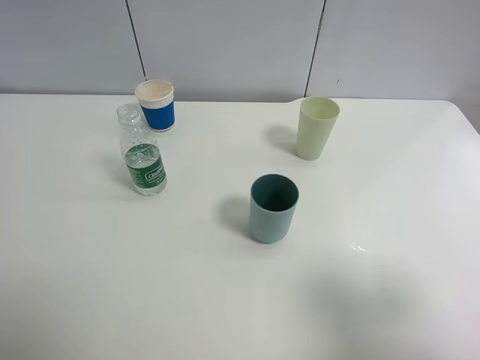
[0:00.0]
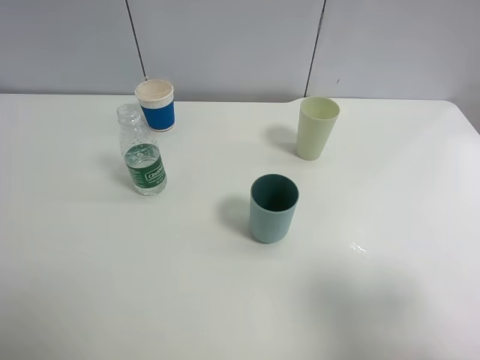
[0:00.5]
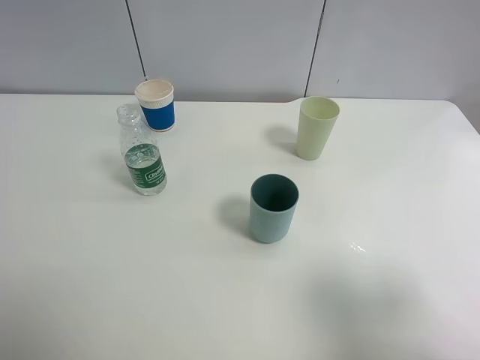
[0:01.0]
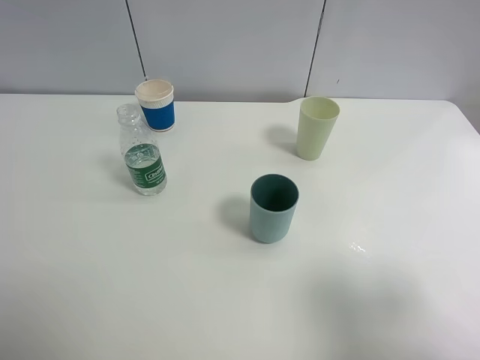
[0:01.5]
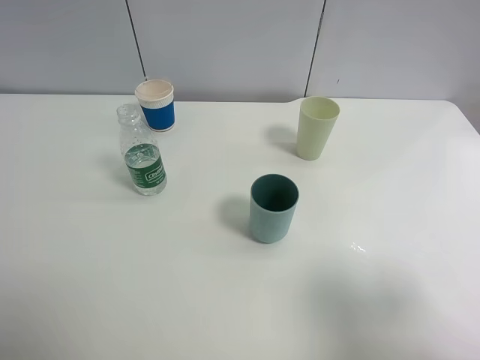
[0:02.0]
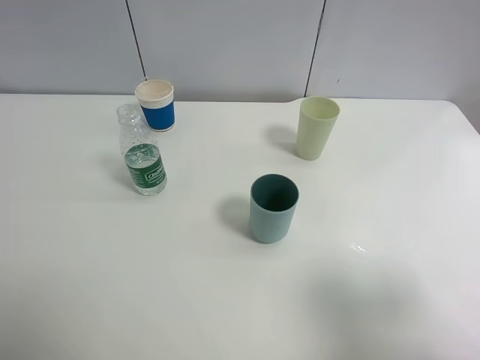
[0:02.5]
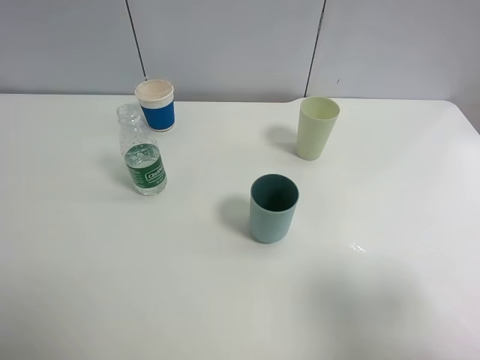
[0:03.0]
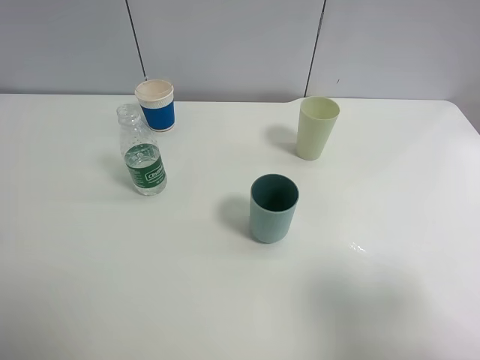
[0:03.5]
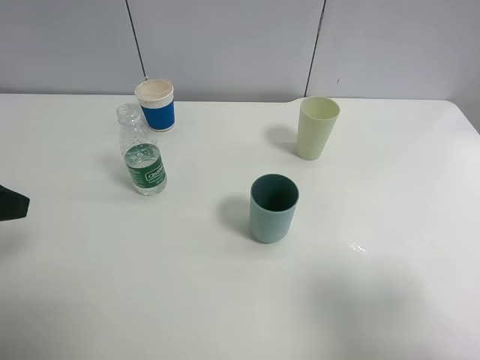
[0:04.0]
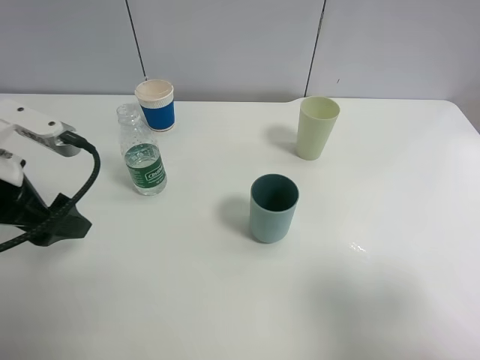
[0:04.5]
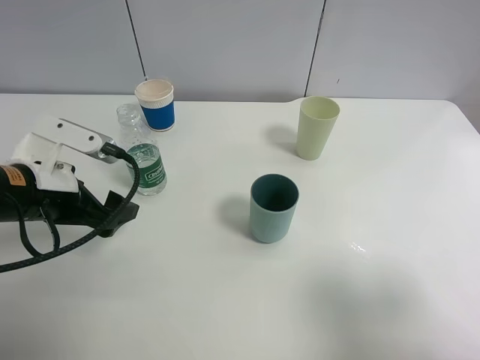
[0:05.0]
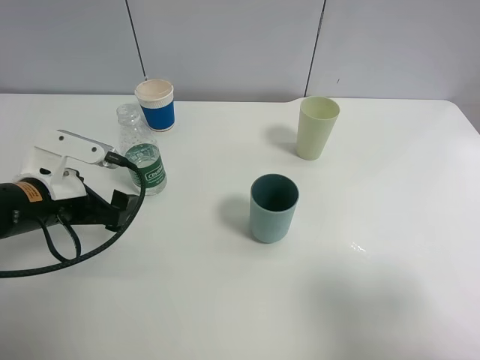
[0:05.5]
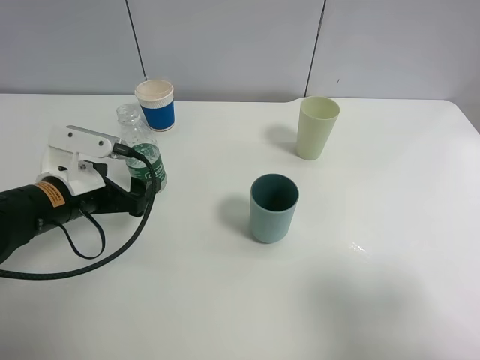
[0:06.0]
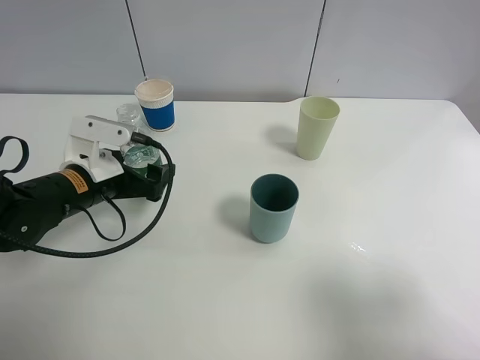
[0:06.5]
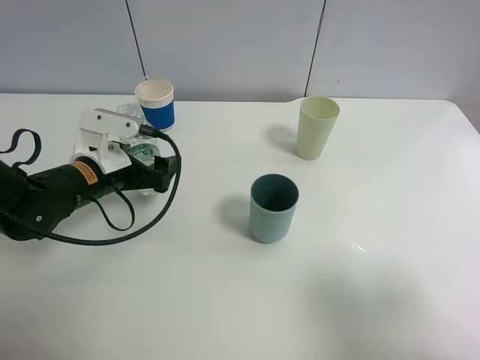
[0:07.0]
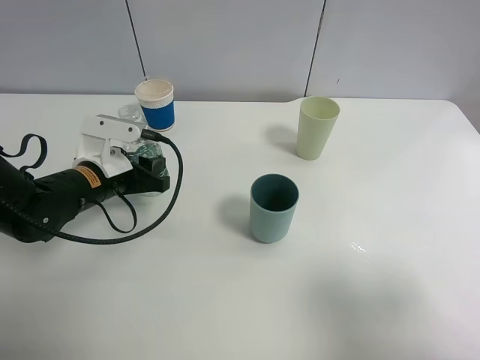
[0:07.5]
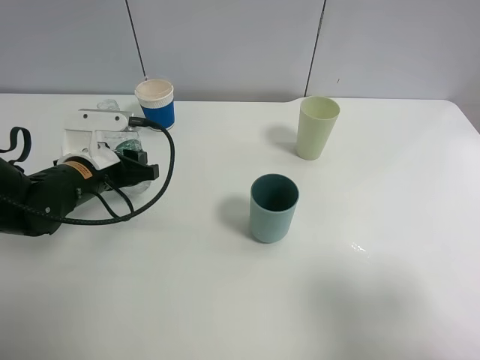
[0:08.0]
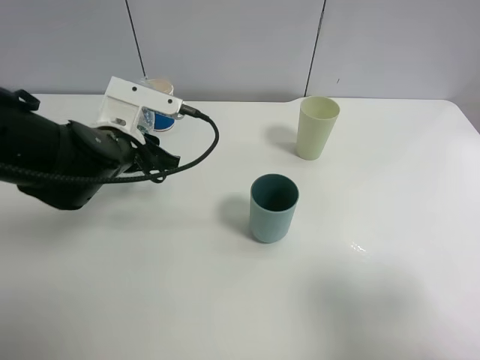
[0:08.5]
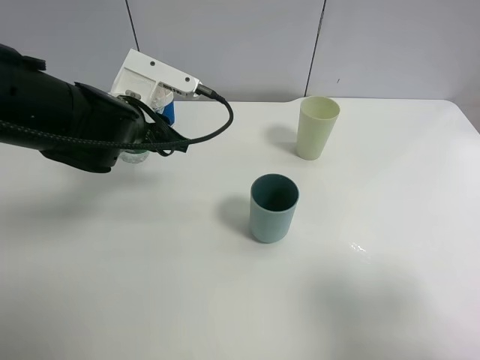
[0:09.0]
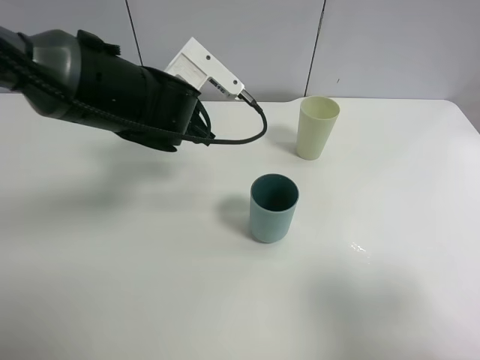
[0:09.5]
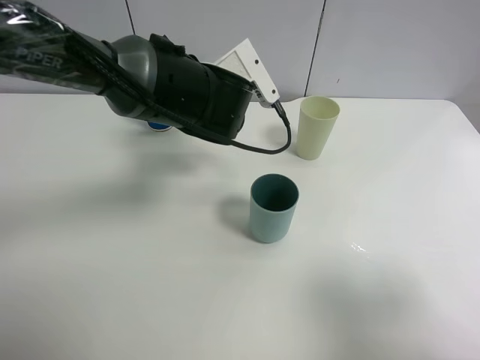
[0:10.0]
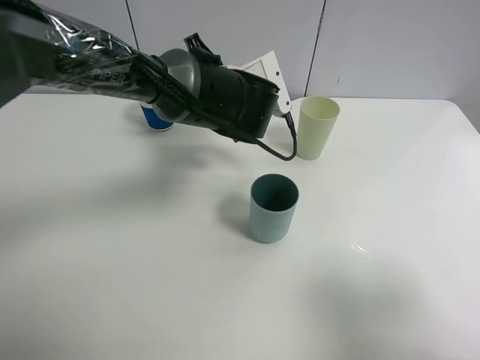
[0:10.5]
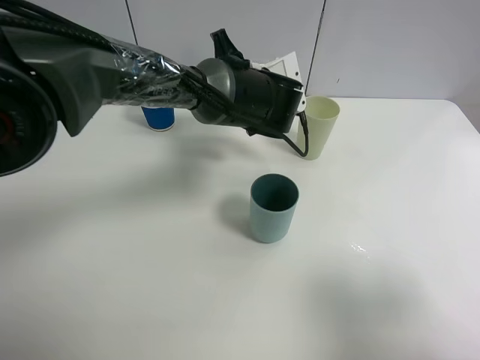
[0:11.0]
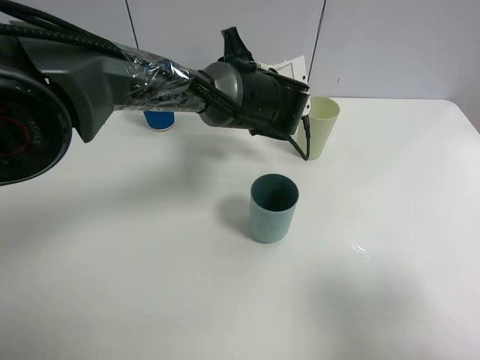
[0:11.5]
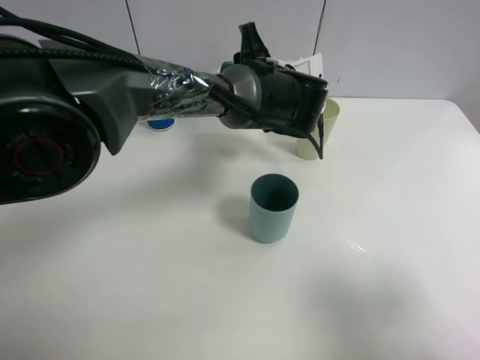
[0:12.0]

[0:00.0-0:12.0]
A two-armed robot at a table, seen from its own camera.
Task of the whole recording: use a clamp to hold the bottle of the drink, pour the beverage into a random cup, then clamp the cup containing the drink and pour the drink into another random cup.
Step, 0:00.0 to 0:08.5: Pick up the water bottle with left gripper.
0:00.0 to 0:02.0: Neither gripper changes place.
0:02.0 to 0:04.0: The left gripper is displaced forward by some 15 cm.
0:04.0 to 0:06.0: The left gripper heads downward, forward and to the right, covering roughly 20 cm.
0:06.0 to 0:08.0: The left gripper closes.
0:08.0 to 0:10.0: The left gripper goes approximately 20 cm to the right and upward.
0:10.0 to 0:12.0: The left gripper heads to the right, covering approximately 10 cm.

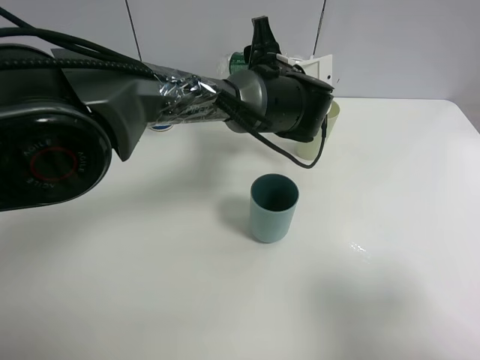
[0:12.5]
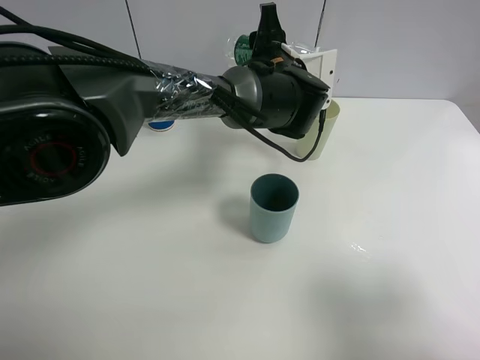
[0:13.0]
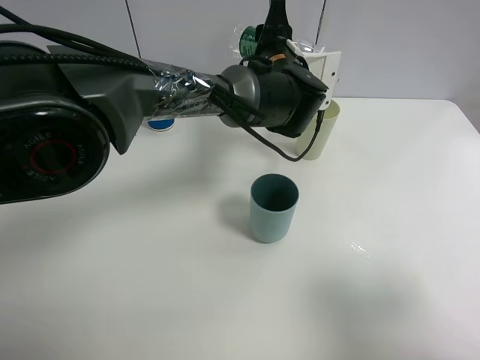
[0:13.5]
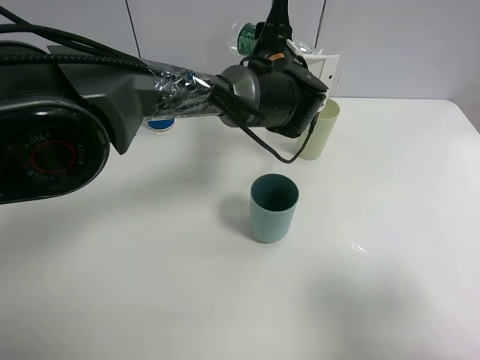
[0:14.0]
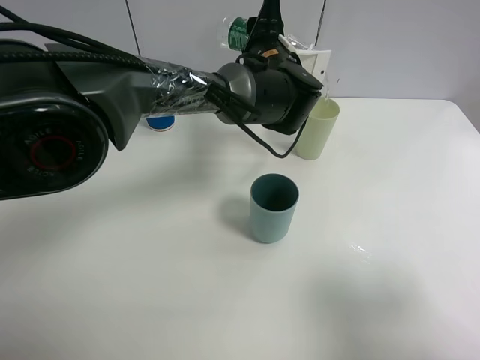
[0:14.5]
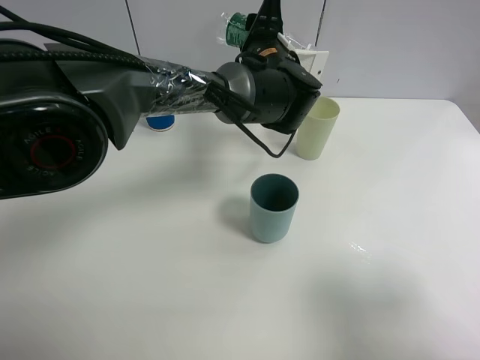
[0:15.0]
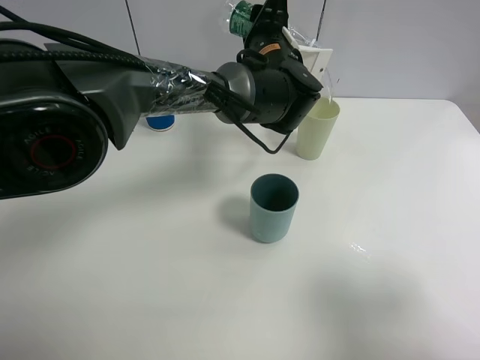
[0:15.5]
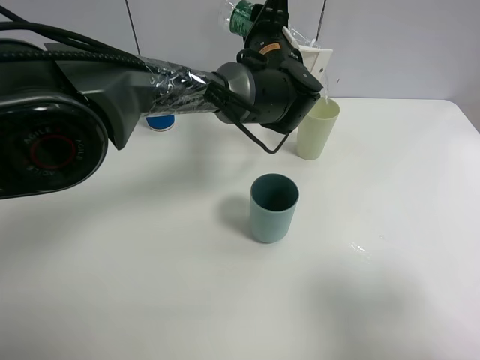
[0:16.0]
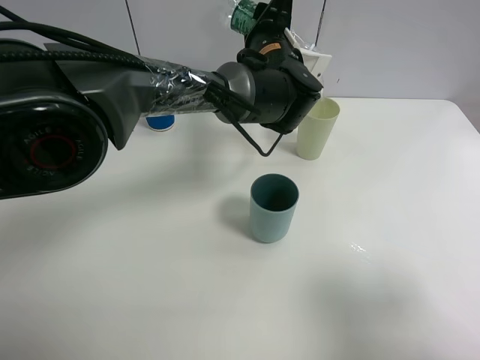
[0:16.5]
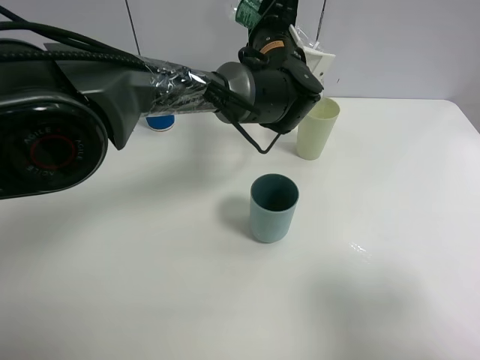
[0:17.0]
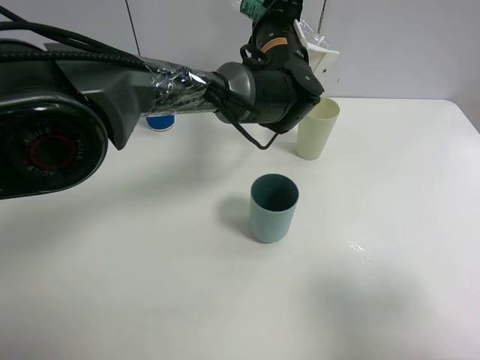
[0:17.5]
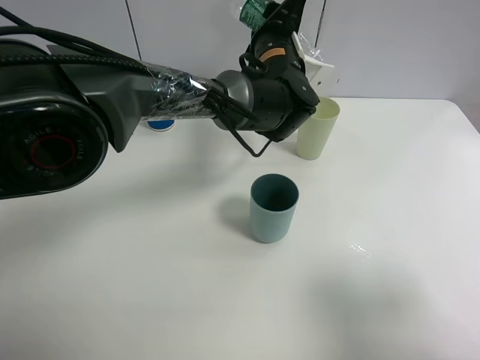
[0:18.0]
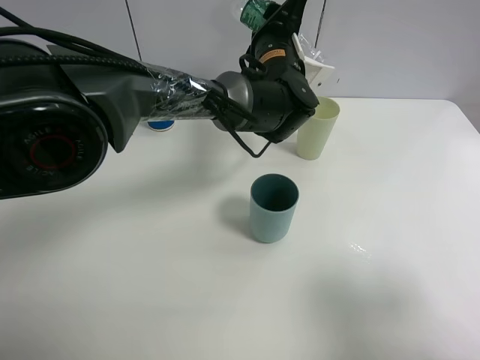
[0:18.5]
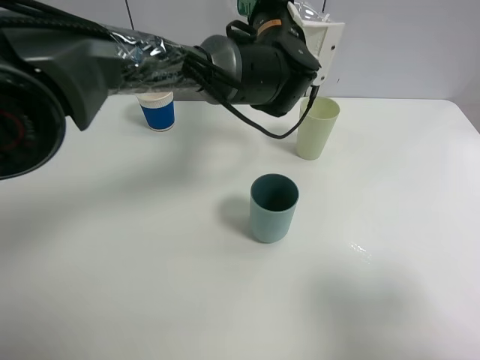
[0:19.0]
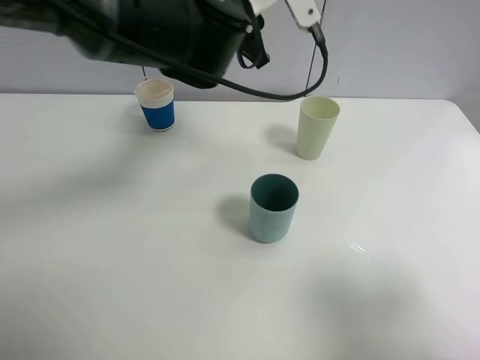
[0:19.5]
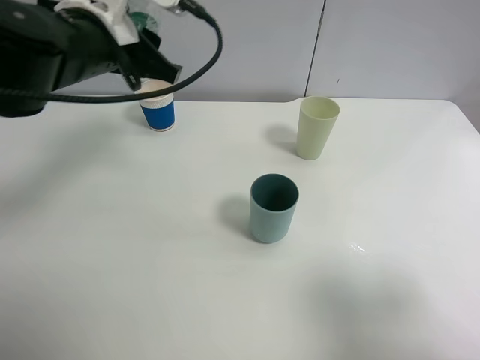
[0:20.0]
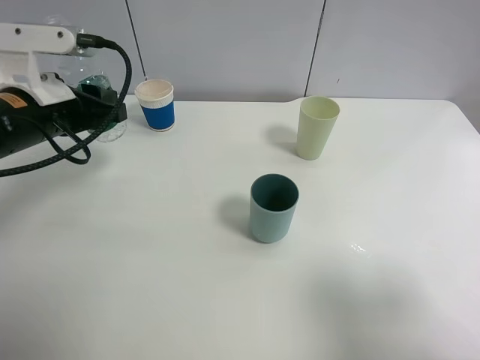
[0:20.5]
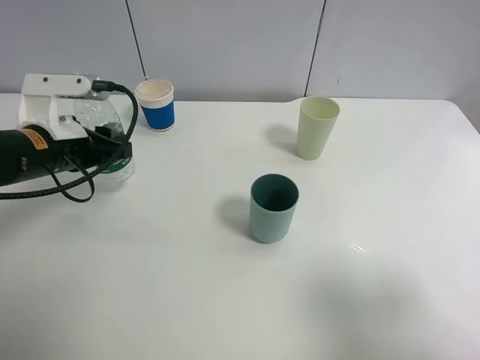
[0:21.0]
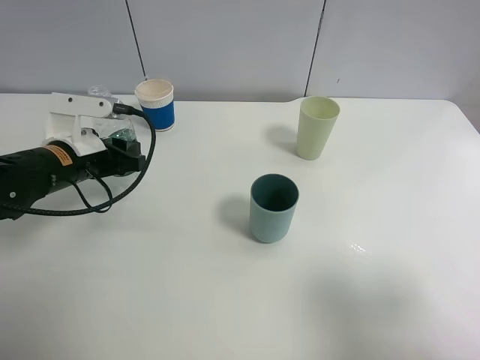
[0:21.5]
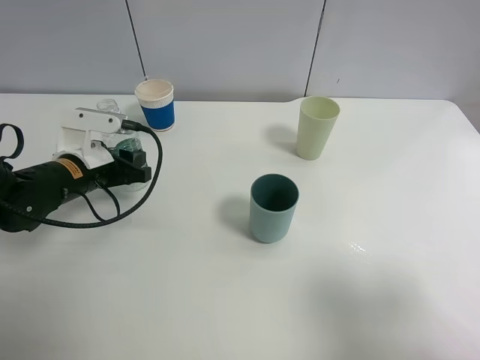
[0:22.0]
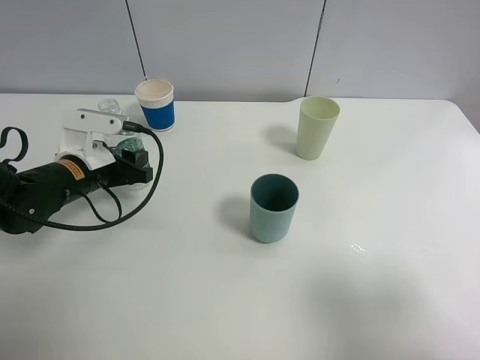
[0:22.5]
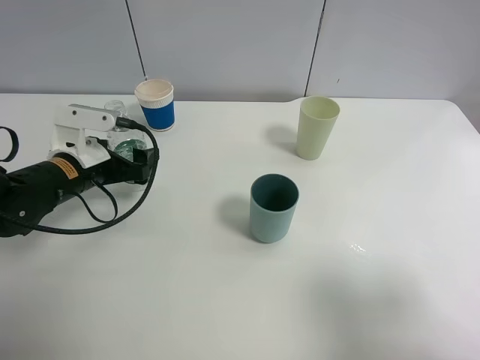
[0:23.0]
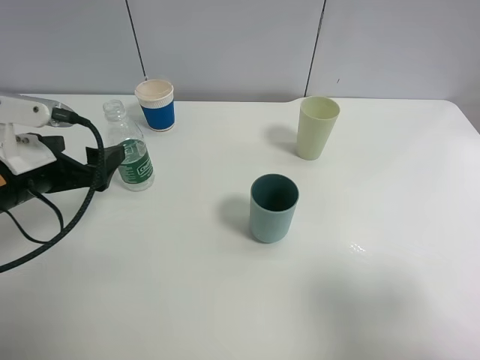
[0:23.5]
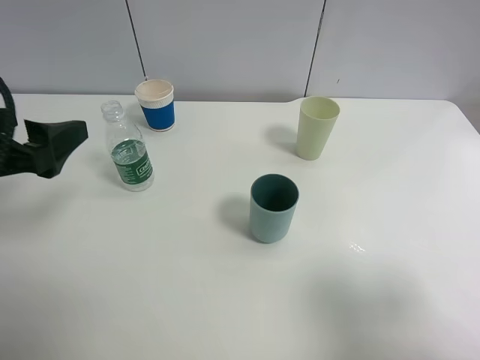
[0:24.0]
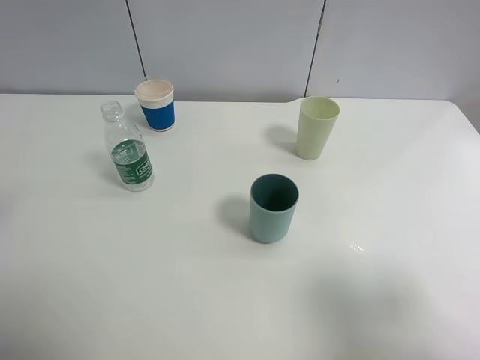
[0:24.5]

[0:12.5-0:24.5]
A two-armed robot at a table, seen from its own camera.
Task of the whole recording: use a clamp to hold the bottle of the drink, pour the beverage into a random cup, then clamp the cup containing the drink and pour the drink into another random cup.
Step, 0:12.5 to 0:19.0: Pour the water into the green plastic cup with left gripper.
Step, 0:19.5 to 0:23.0: Place the water bottle on the table with left gripper.
0:12.5 to 0:14.5: The grippers make only small movements.
0:14.5 to 0:16.5: The grippers make only small movements.
0:16.5 to 0:18.5: The grippers make only small movements.
0:18.5 to 0:20.5: The left gripper travels to the left and backward by roughly 30 cm.
0:20.5 to 0:22.5: The left gripper moves downward, some 10 cm.
0:22.5 to 0:24.5: The left gripper shifts approximately 30 cm upward and backward, and opens up.

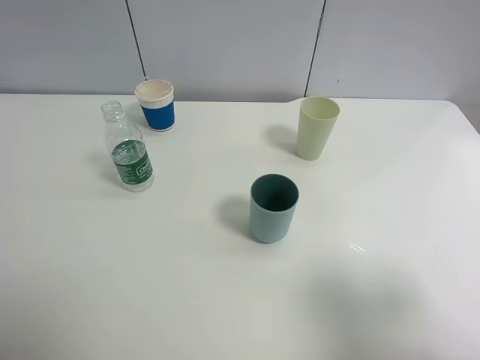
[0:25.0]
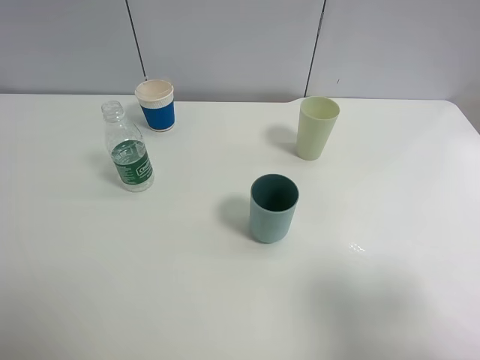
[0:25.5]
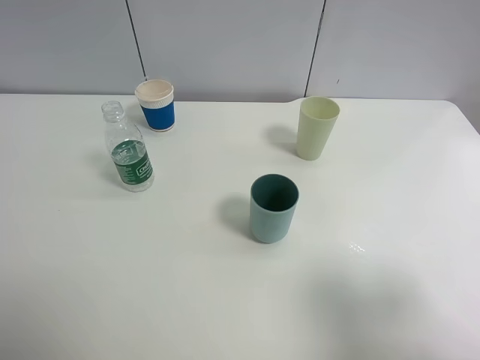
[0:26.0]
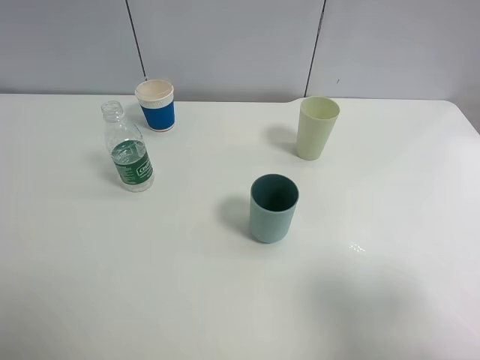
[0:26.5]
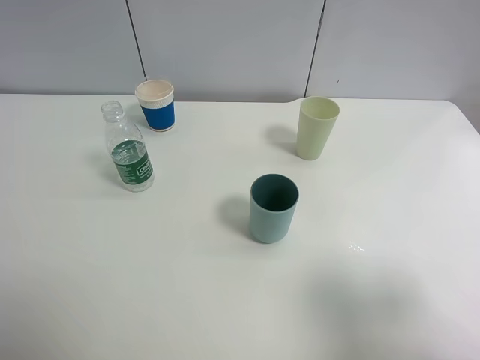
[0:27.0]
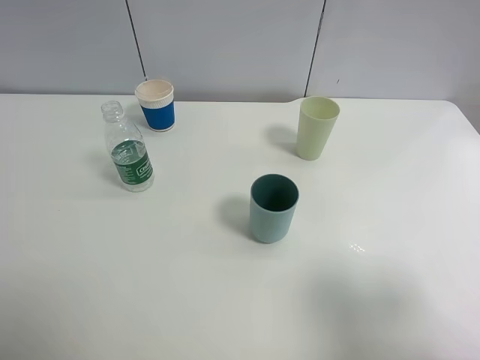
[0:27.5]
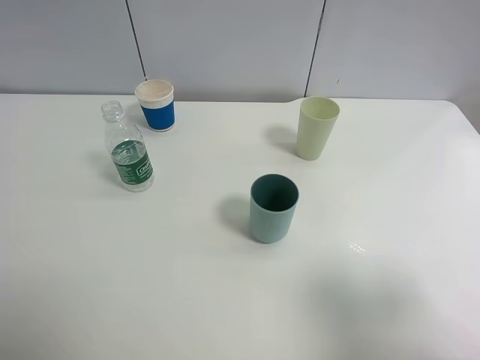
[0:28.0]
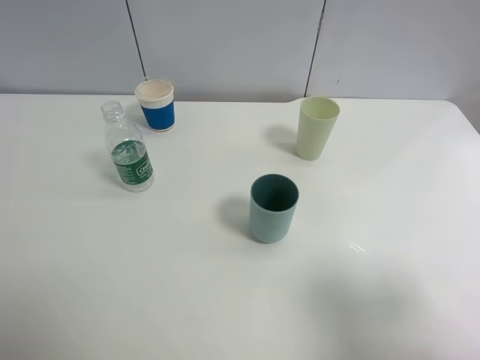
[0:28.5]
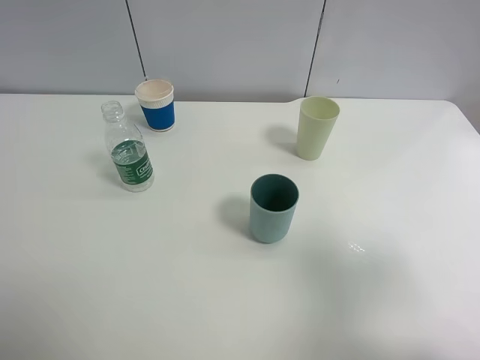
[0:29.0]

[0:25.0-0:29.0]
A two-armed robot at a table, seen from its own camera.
Task of the whole recording: use a clamp to hold the bottle of the drink, pour the beverage into a random cup, then clamp the cup containing the drink and pour the drink into another random cup.
0:27.0 to 0:29.0: The grippers stay close to where they were, moving slightly.
